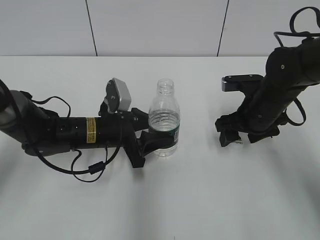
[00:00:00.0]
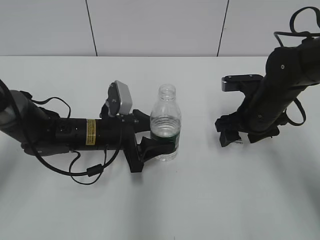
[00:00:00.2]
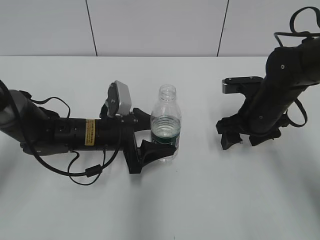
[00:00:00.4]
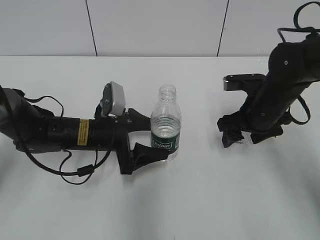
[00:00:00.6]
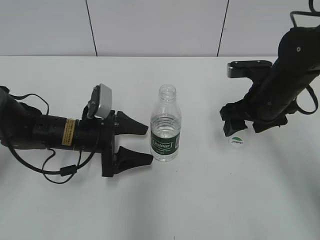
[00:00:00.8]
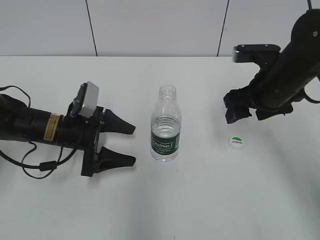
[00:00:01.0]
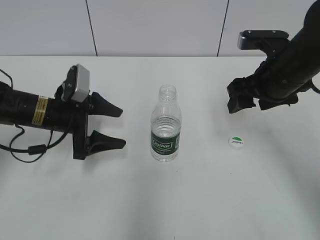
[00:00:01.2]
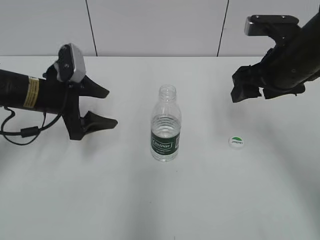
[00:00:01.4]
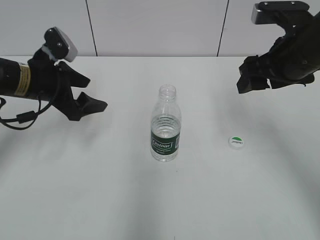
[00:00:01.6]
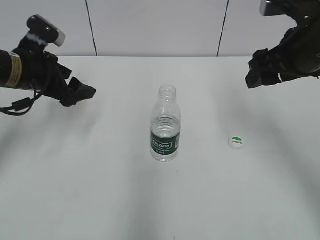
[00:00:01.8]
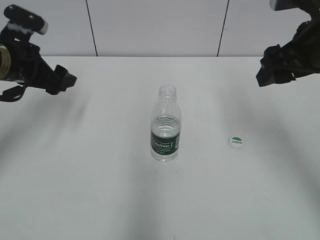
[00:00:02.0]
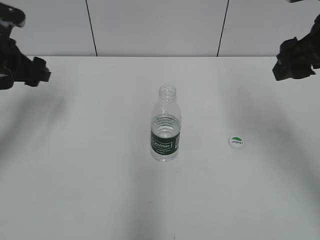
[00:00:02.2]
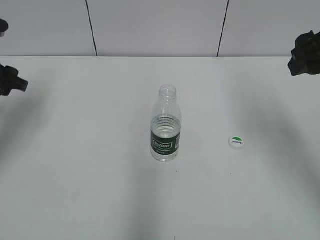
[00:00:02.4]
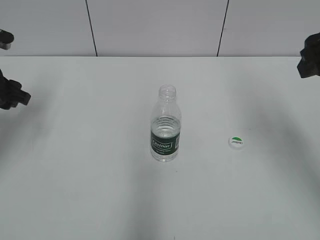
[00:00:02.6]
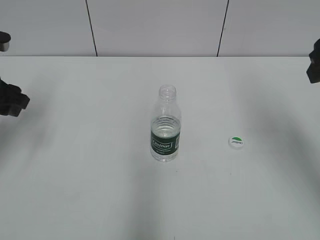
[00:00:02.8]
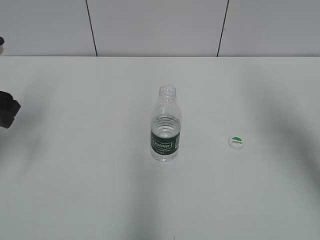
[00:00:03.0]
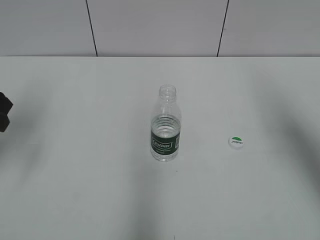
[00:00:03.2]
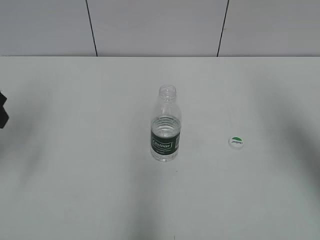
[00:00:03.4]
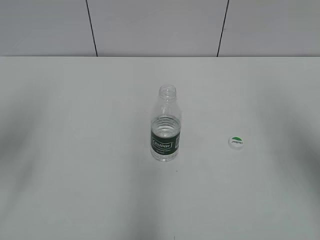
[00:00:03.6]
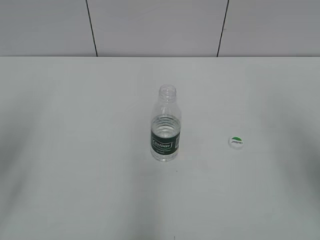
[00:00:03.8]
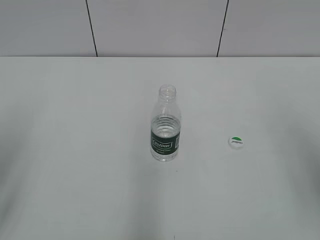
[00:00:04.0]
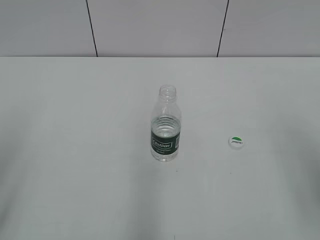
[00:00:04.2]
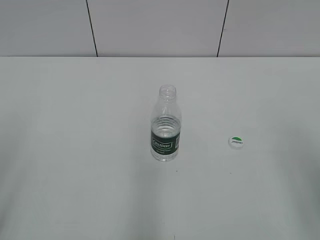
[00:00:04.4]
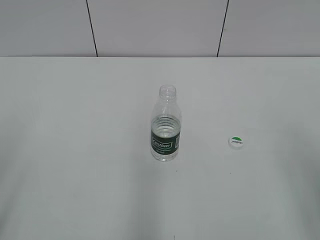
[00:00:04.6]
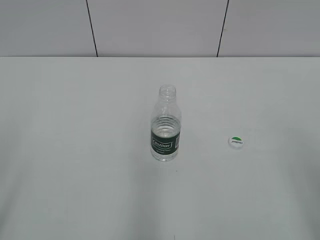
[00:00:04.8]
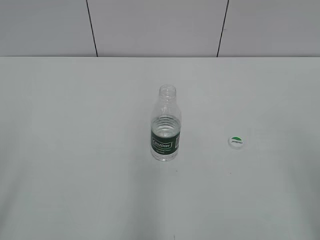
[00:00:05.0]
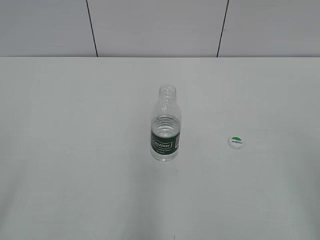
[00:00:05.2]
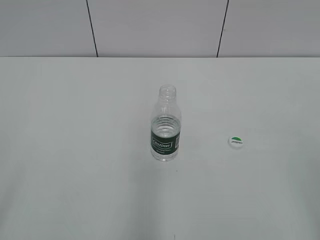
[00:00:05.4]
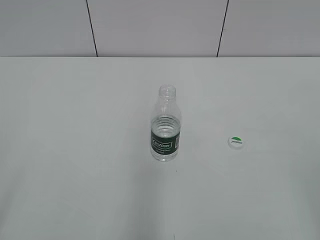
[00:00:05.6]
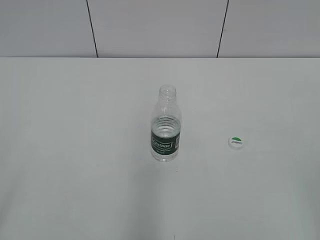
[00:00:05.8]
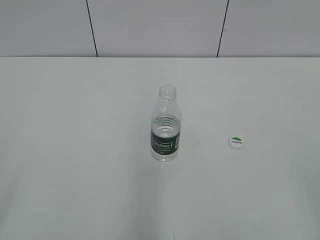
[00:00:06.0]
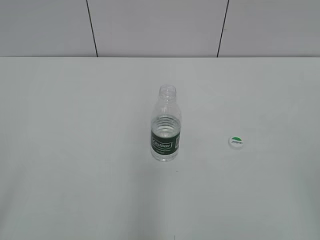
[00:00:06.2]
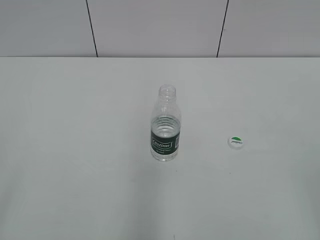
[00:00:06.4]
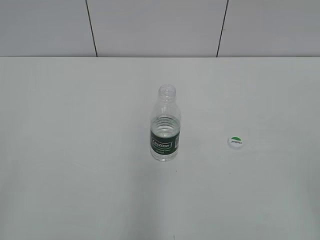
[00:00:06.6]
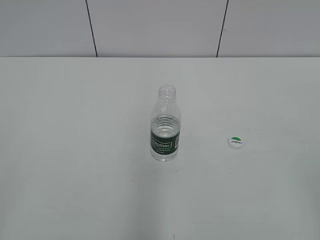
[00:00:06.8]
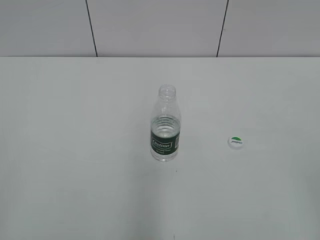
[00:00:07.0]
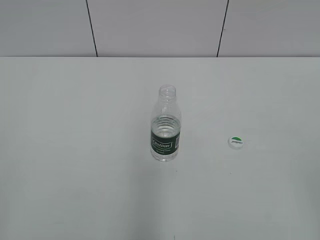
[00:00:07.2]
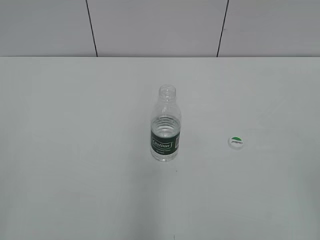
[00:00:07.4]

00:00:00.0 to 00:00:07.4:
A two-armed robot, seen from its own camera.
Step, 00:00:00.0 to 00:00:00.6: Place the bottle on the table with the left gripper.
00:00:00.0 to 00:00:01.4: The right gripper goes roughly 10 cm upward. The left gripper is displaced to the left and upward by some 10 cm, and opens its fingers.
00:00:01.4 to 00:00:03.0: The left gripper moves to the left, upward and backward, approximately 15 cm, and closes its fingers. Meanwhile the right gripper heads upward, to the right and backward, covering approximately 15 cm.
00:00:03.0 to 00:00:04.4: The two grippers go roughly 20 cm backward.
